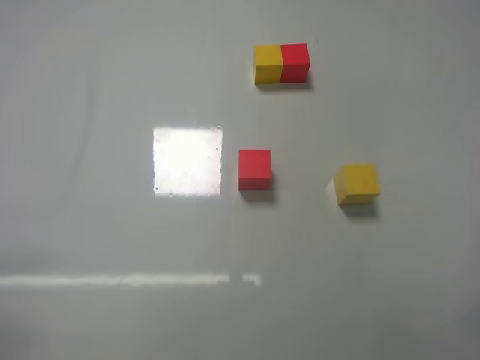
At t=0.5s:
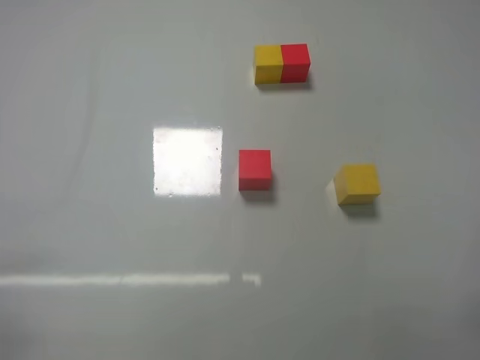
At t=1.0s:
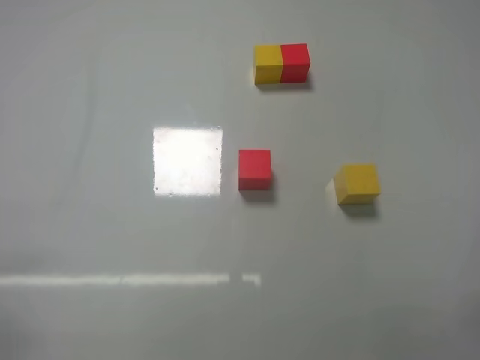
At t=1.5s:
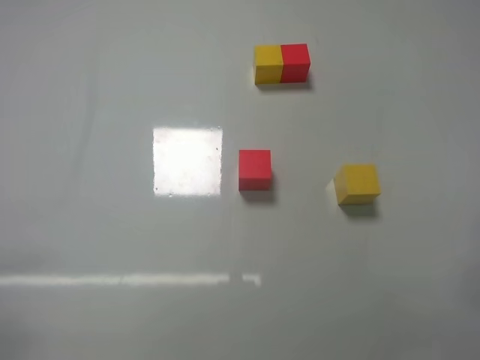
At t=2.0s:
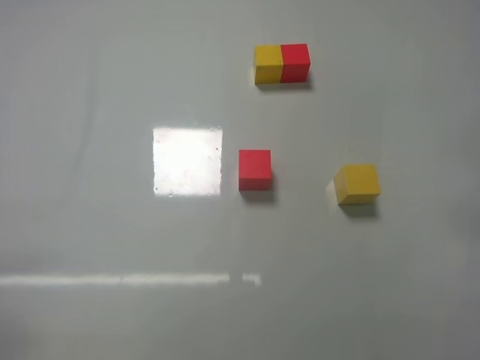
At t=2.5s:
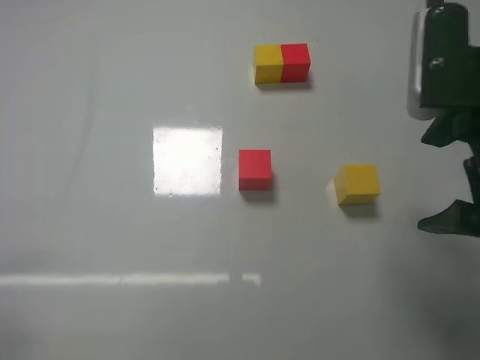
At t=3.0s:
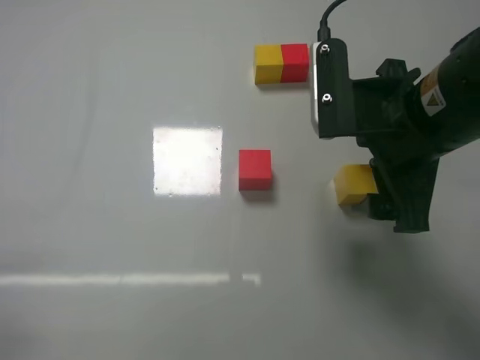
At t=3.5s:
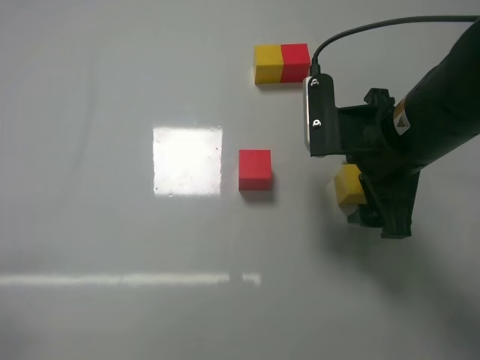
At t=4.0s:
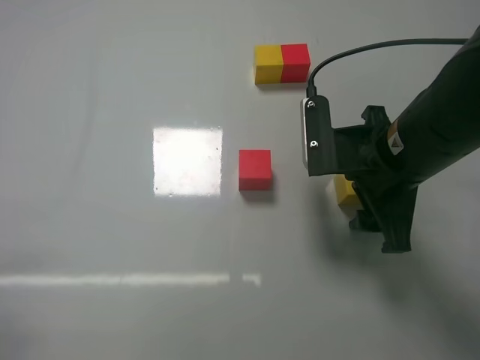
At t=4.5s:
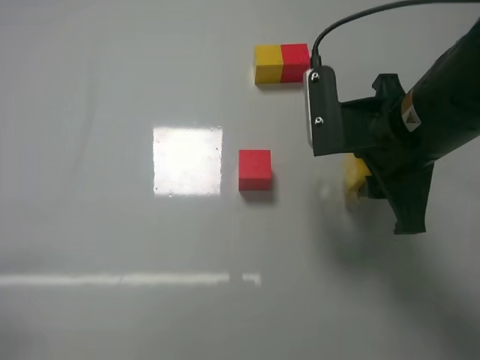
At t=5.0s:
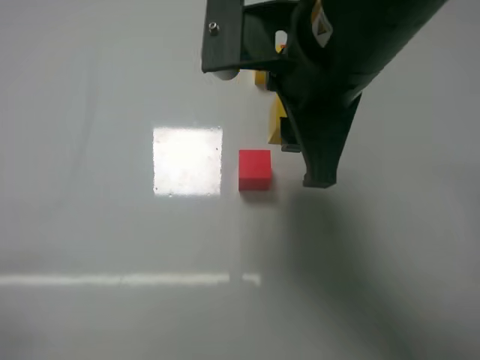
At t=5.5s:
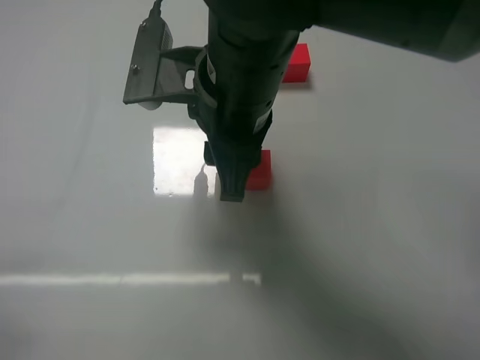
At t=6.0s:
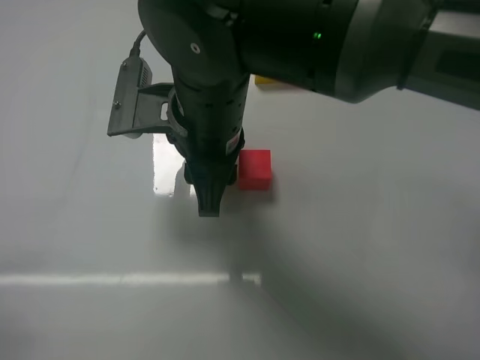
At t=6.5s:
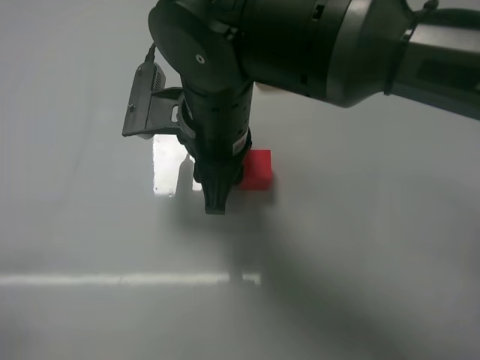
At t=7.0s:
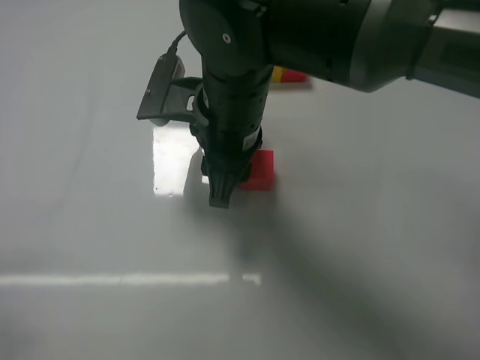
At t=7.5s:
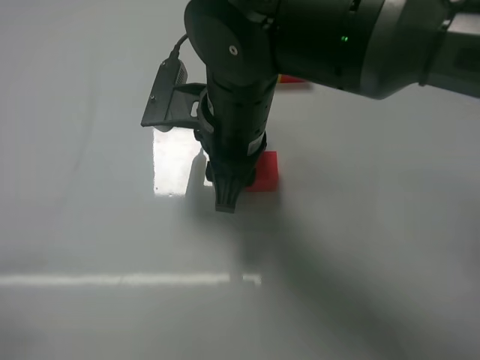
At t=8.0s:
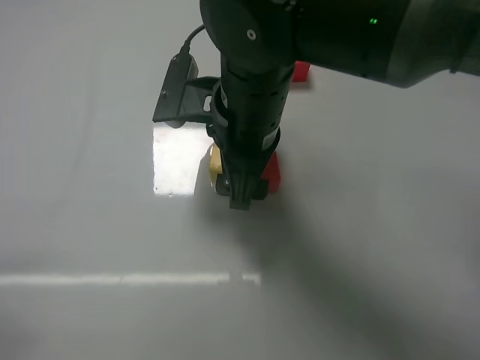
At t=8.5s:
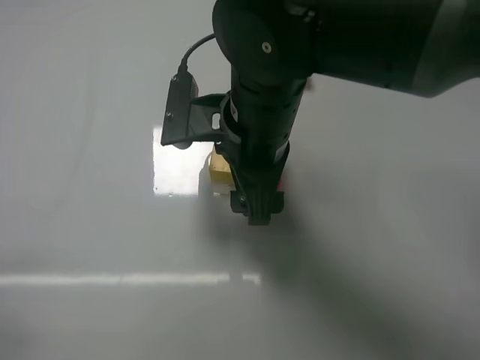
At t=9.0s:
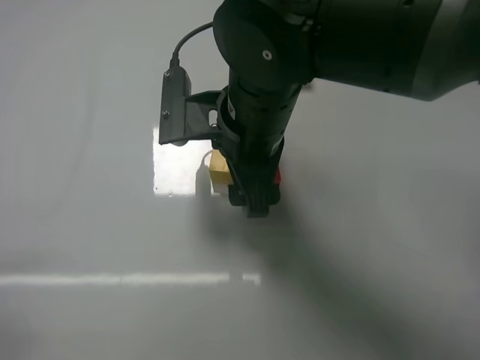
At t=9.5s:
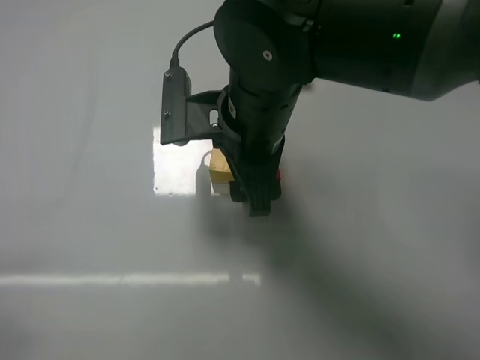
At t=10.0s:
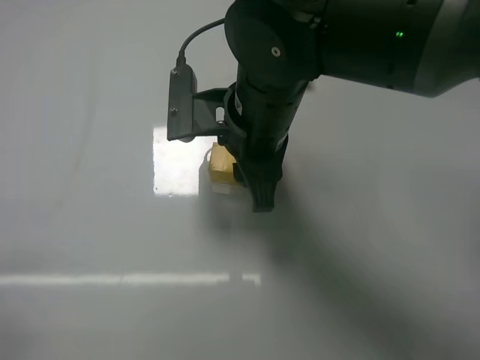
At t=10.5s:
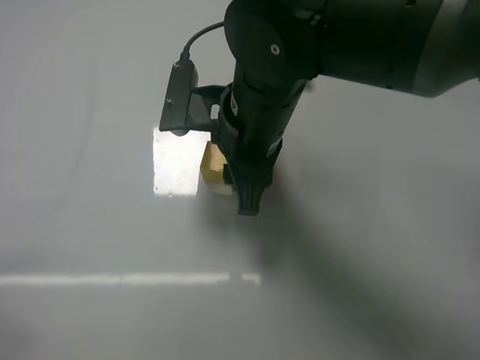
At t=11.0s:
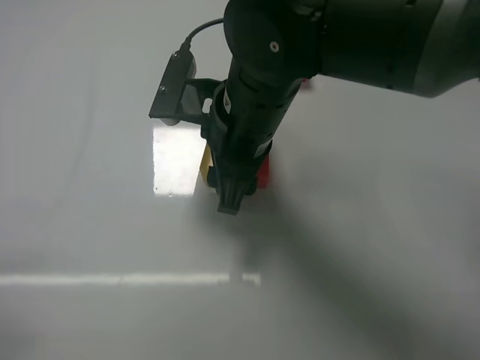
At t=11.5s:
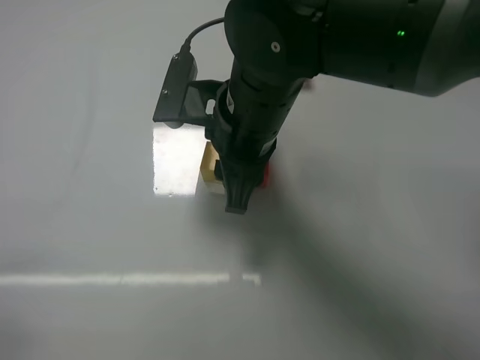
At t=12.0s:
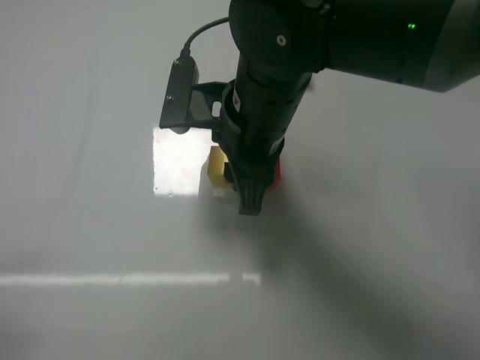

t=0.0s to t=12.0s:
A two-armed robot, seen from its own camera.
Task of the whole recording: According to the building block template in front, assemble the scattered blocks together.
Step, t=0.0s to t=4.0s: Grasp the yellow block with right gripper.
Step, t=4.5s to t=8.0s: Put the yellow cube on the left of the red cube with the right gripper.
t=2.0s to t=4.0s: The right gripper shifts roughly 25 cm forward, to the left and downward, and closes its fingers.
t=4.0s to t=6.0s: The right gripper is displaced to the left by approximately 20 cm, and closes up.
t=6.0s to t=8.0s: The right gripper opens its fingers.
t=8.0s to t=10.0s: The right gripper closes.
t=10.0s to t=12.0s: The right gripper opens and closes again.

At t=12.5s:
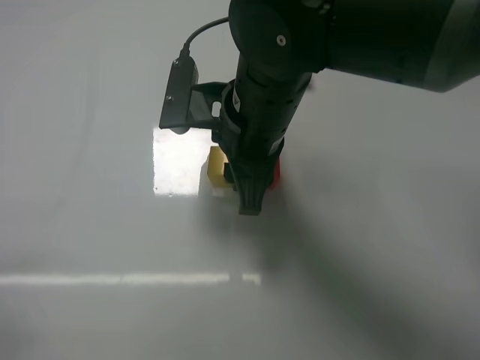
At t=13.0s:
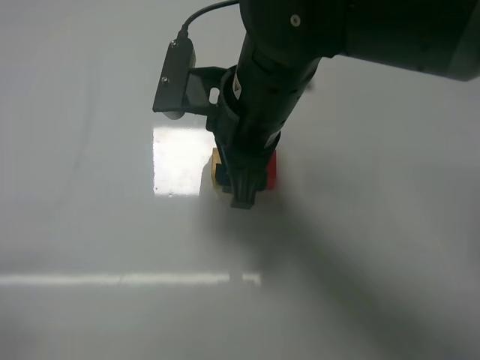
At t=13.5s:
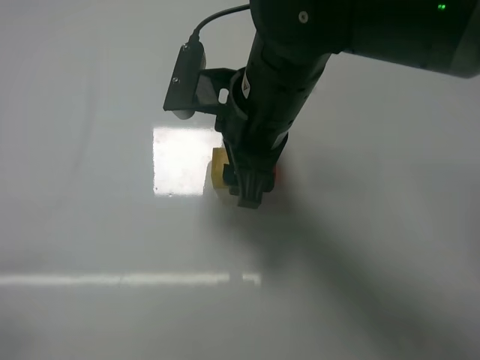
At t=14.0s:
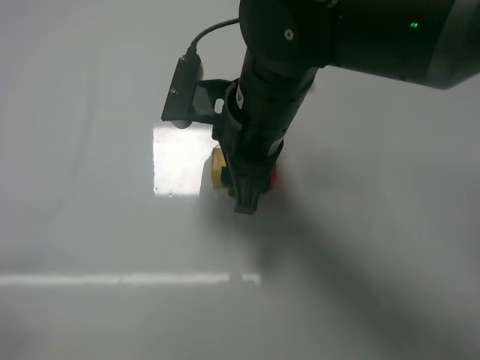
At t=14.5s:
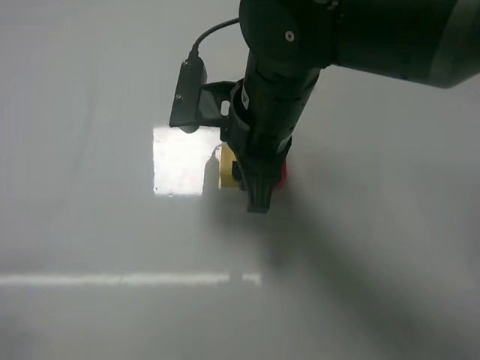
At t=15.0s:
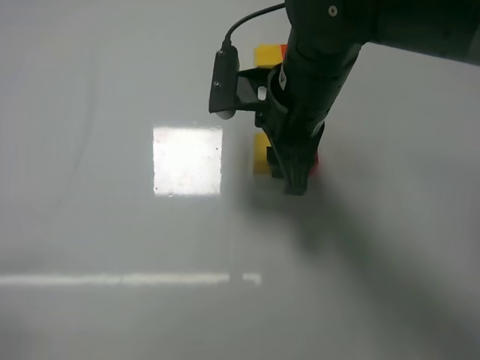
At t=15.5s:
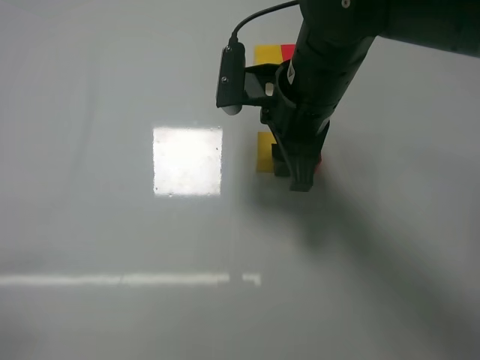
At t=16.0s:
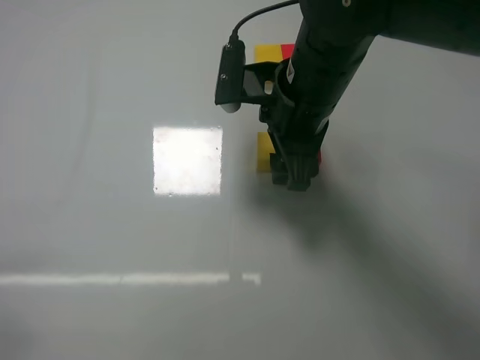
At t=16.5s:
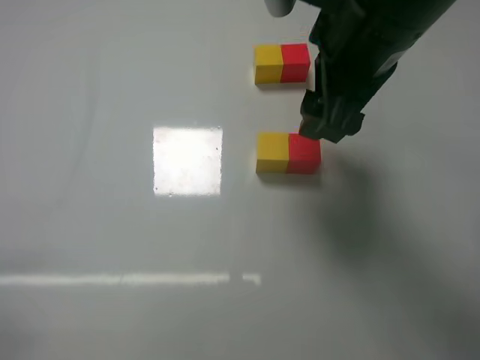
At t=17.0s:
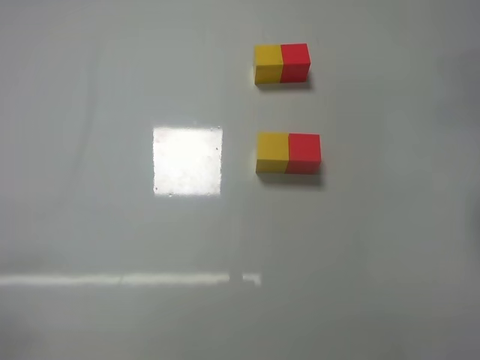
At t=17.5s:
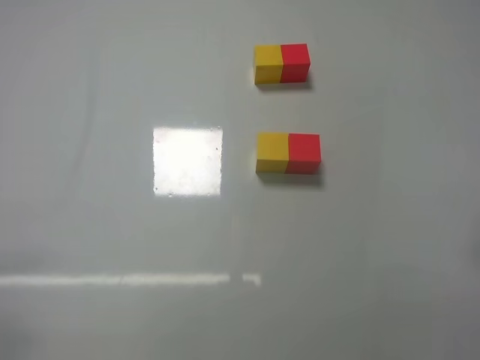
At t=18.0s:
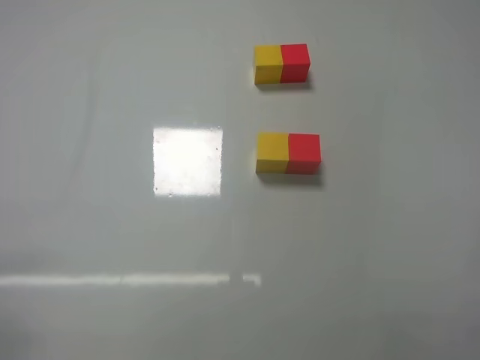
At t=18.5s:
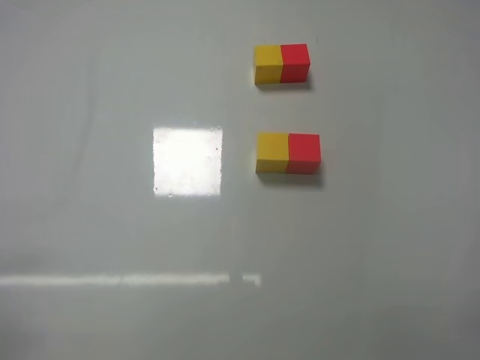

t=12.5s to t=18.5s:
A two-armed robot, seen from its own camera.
Task of the whole recording: According to the building block template in front, assemble the scattered blocks together.
Step, t=12.5s to t=16.0s: Put the red cube and yellow cube in the center of the table with the right gripper.
t=12.5s to t=14.5s: The right gripper opens and closes again.
t=14.5s to t=16.5s: The right gripper goes approximately 10 cm upward and to the right, and opens up.
t=16.5s to t=18.5s: The right gripper shifts some 35 cm backward, to the right and downward.
